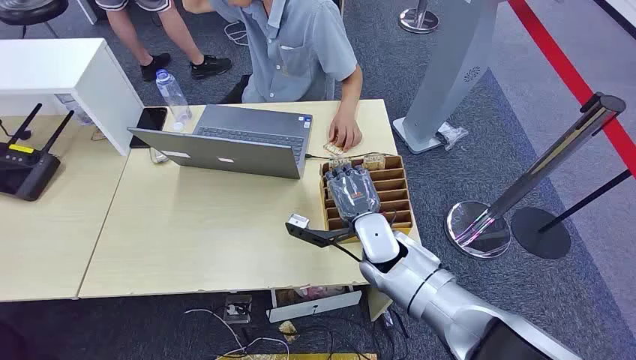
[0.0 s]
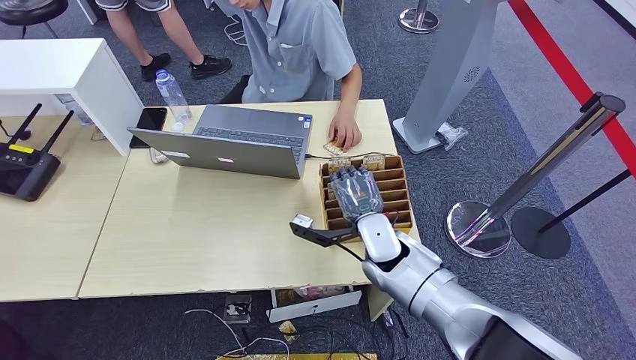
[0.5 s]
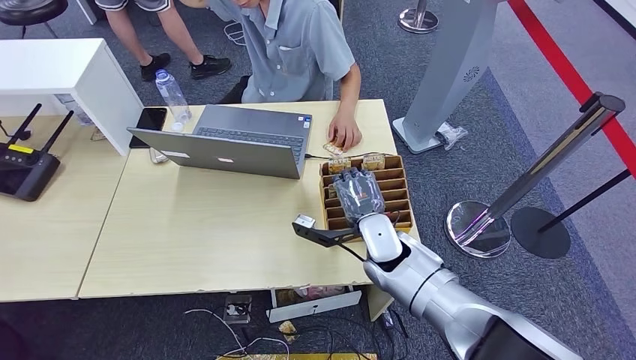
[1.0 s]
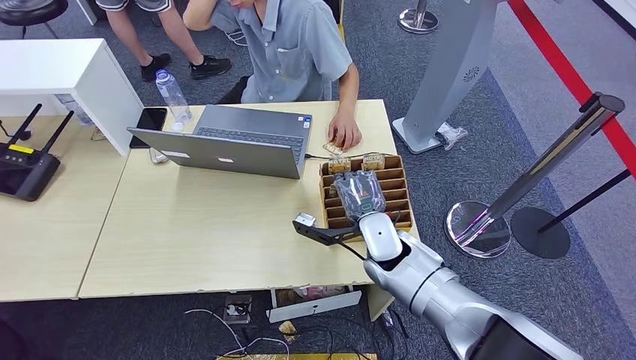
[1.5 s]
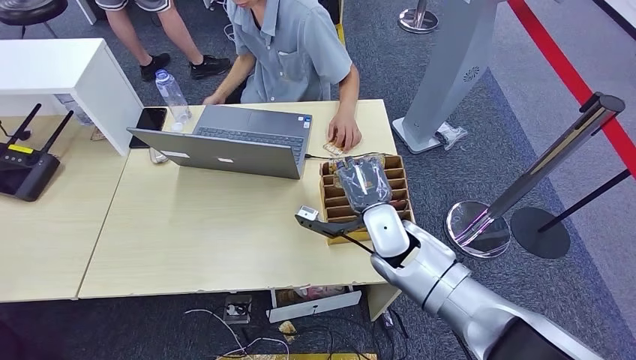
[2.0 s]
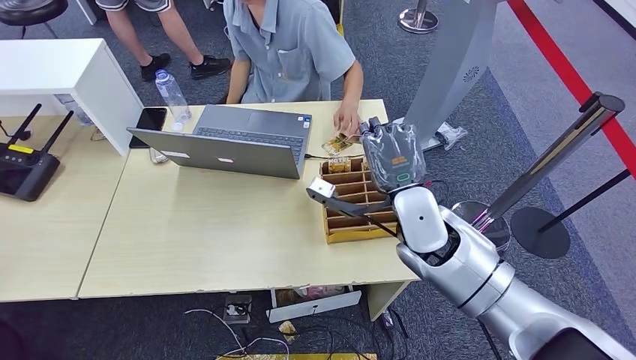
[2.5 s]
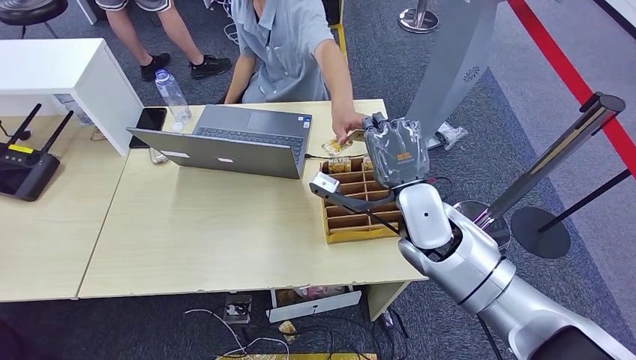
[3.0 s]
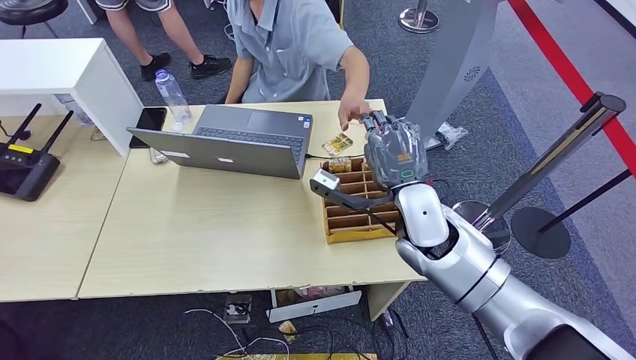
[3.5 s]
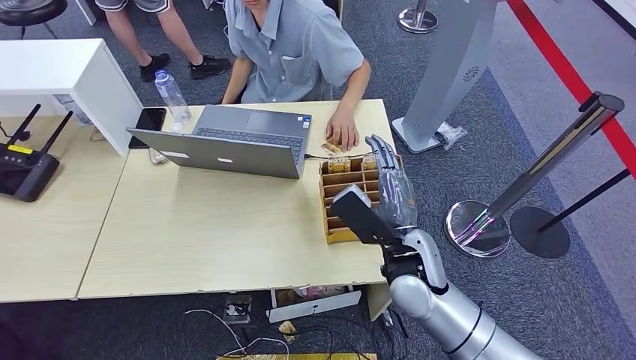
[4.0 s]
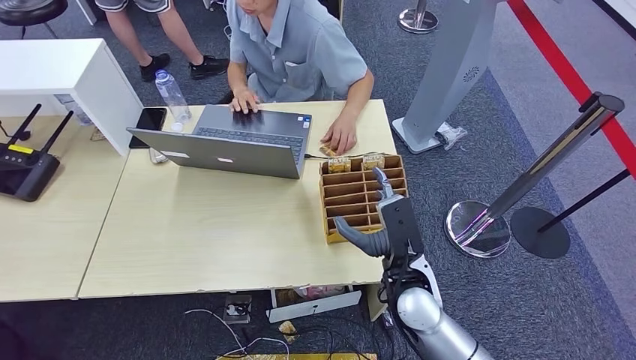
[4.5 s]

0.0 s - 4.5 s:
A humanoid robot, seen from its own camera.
Step, 0.0 s - 2.0 s: Pick up the key card from the card box.
Step, 2.5 s - 4.5 s: Hand the key card to the target.
2.0 s - 4.5 s: The right hand heads backward, covering roughly 10 cm, and goes upward and returns, about 10 cm each way.
